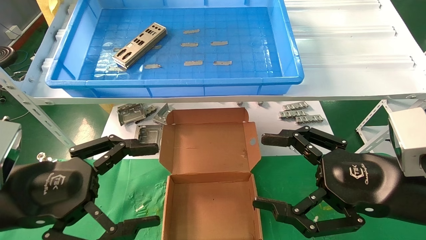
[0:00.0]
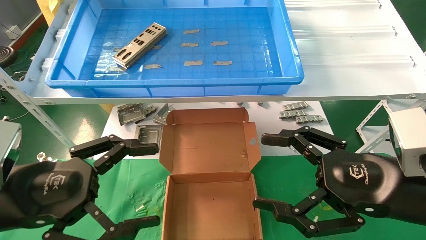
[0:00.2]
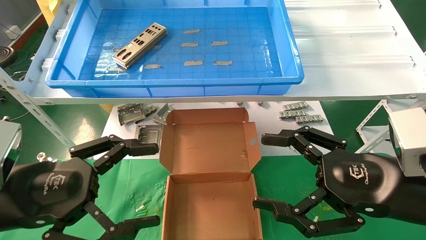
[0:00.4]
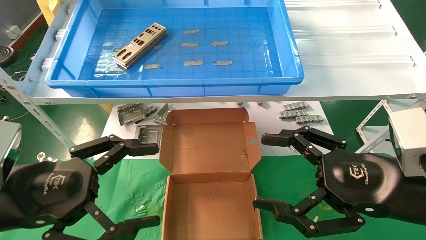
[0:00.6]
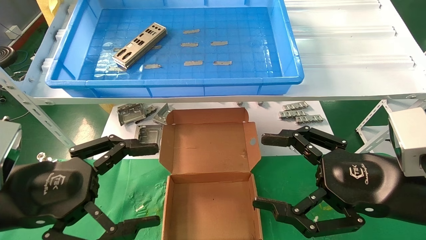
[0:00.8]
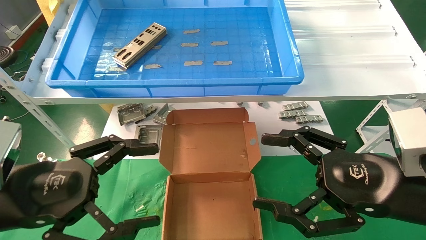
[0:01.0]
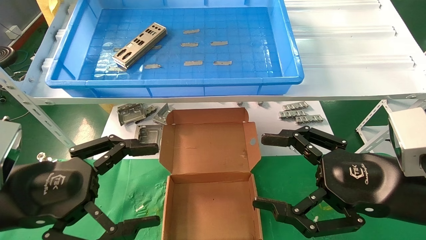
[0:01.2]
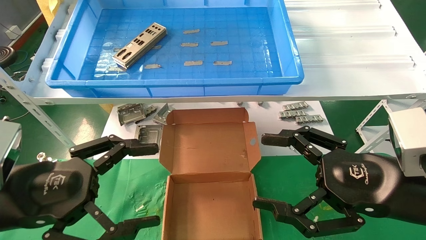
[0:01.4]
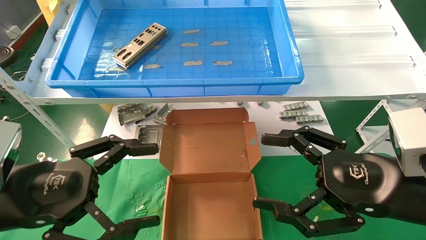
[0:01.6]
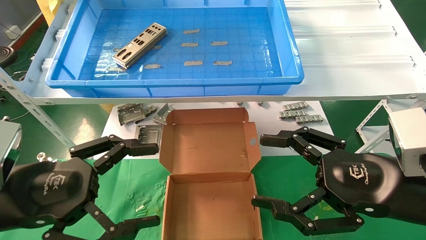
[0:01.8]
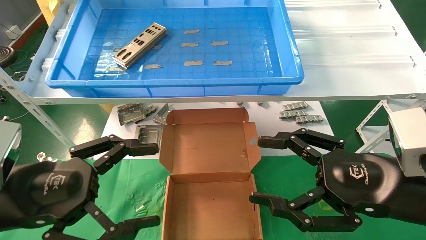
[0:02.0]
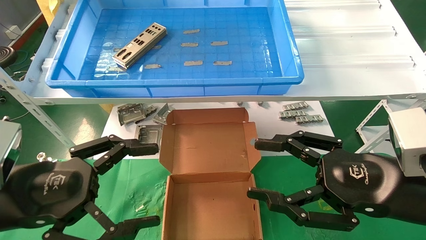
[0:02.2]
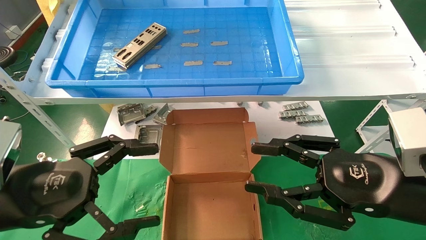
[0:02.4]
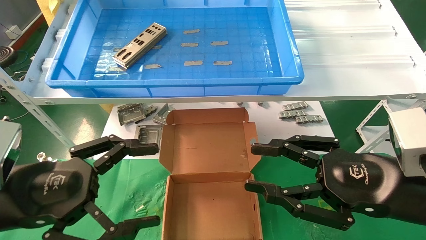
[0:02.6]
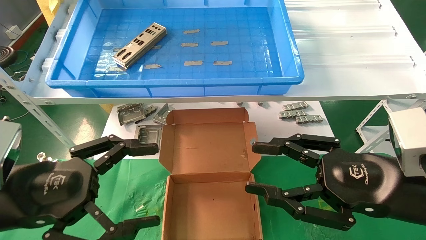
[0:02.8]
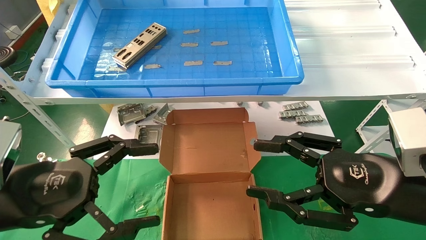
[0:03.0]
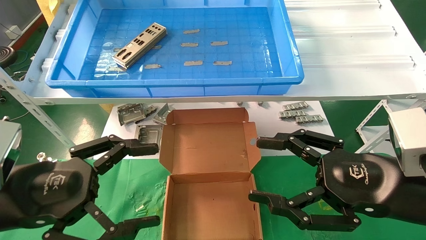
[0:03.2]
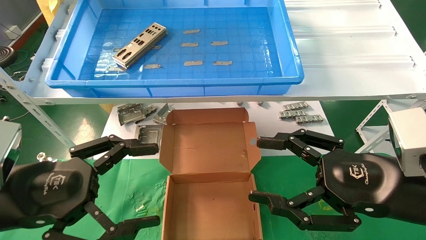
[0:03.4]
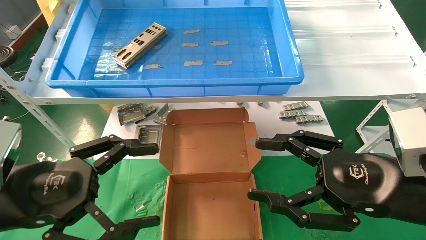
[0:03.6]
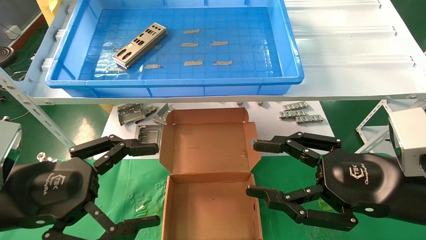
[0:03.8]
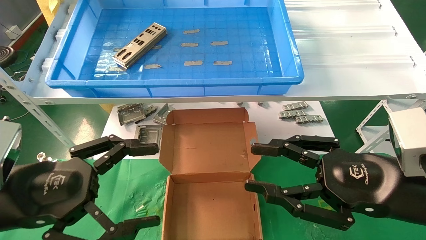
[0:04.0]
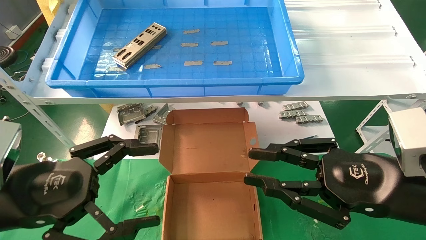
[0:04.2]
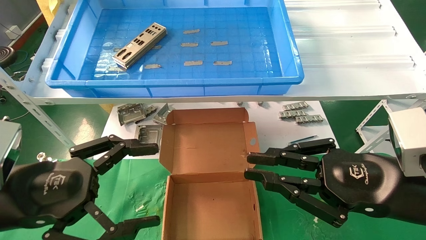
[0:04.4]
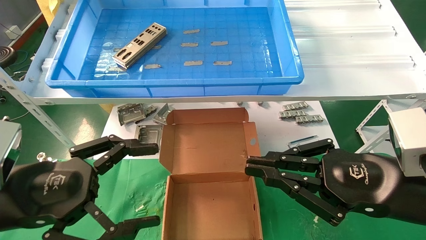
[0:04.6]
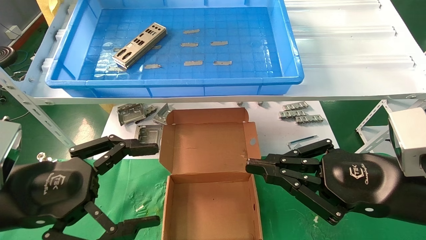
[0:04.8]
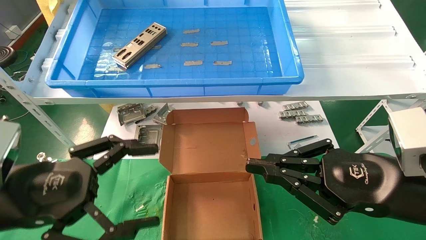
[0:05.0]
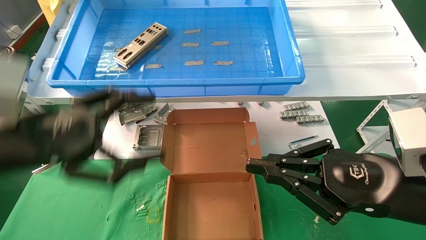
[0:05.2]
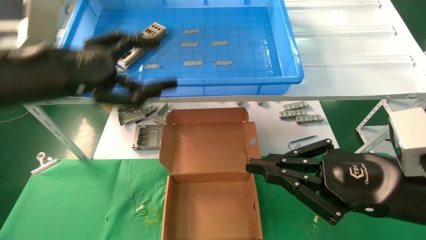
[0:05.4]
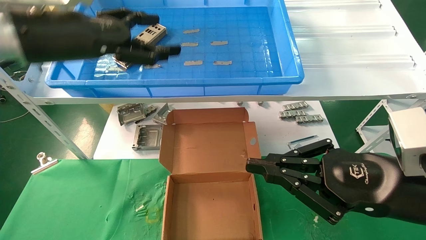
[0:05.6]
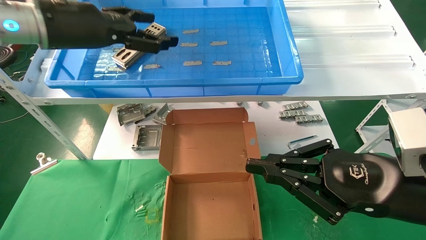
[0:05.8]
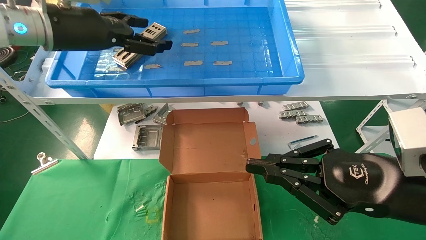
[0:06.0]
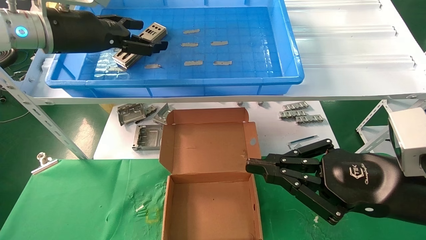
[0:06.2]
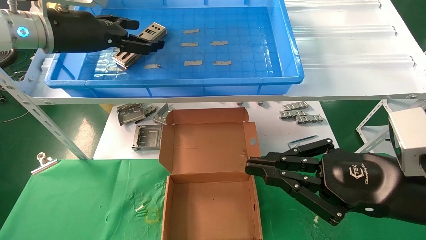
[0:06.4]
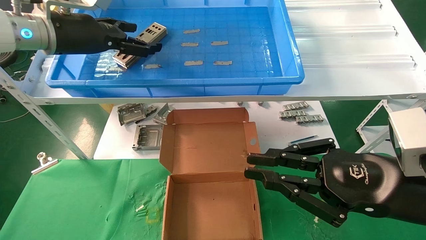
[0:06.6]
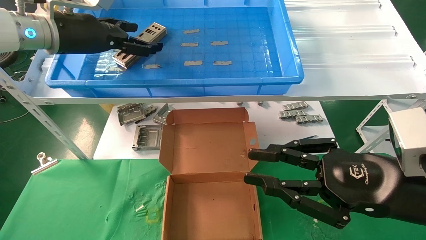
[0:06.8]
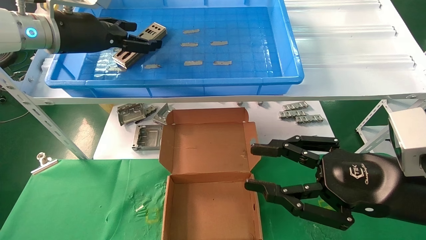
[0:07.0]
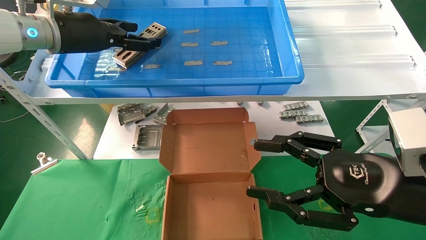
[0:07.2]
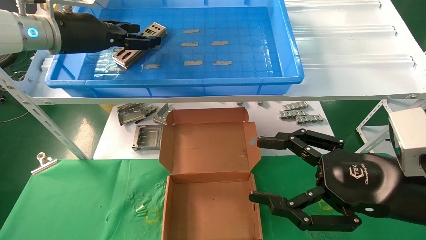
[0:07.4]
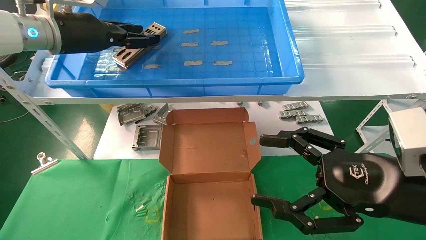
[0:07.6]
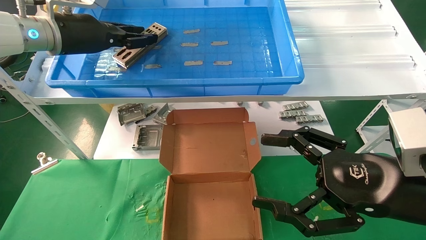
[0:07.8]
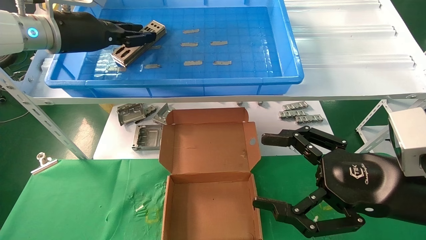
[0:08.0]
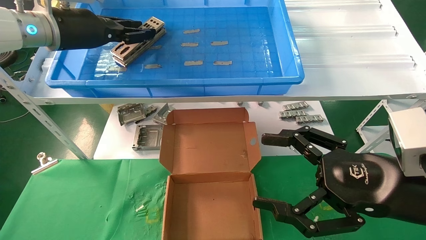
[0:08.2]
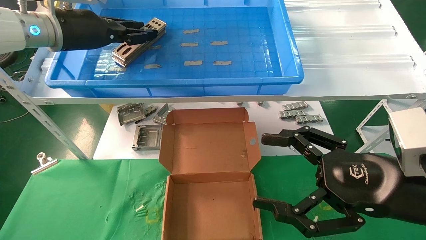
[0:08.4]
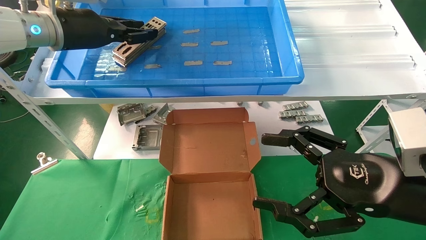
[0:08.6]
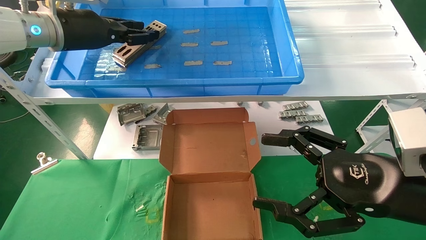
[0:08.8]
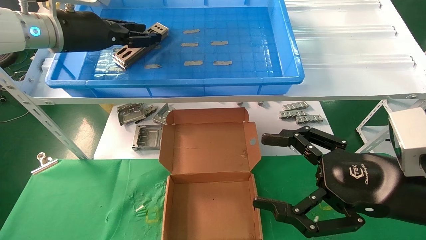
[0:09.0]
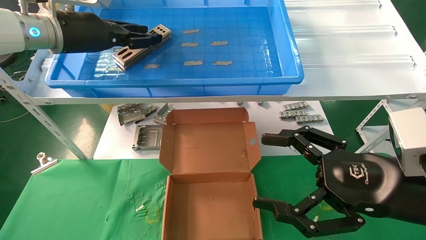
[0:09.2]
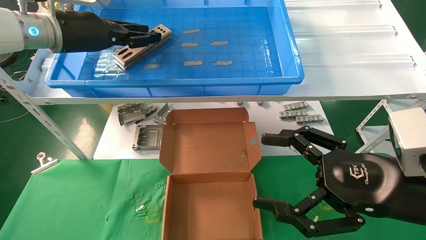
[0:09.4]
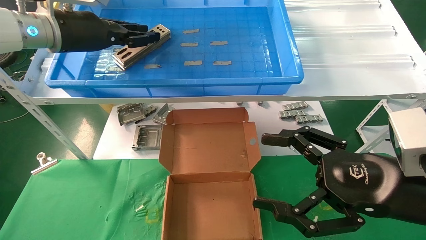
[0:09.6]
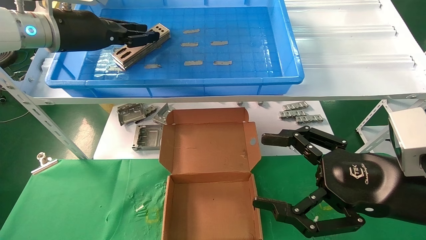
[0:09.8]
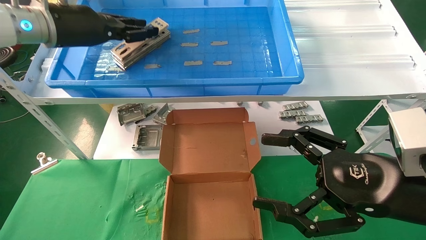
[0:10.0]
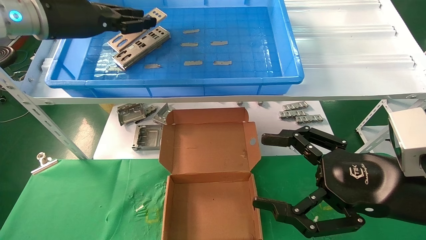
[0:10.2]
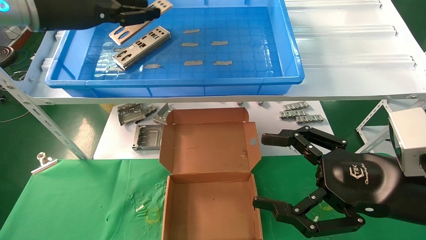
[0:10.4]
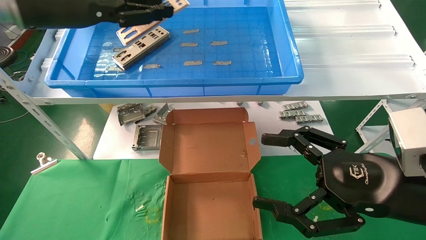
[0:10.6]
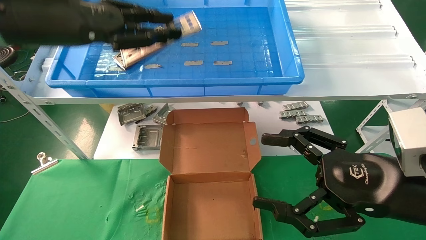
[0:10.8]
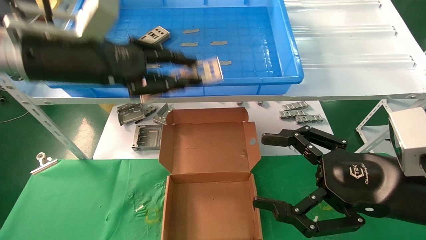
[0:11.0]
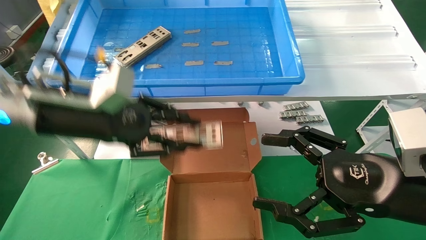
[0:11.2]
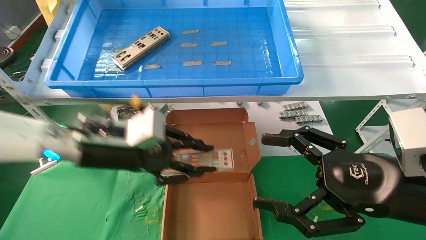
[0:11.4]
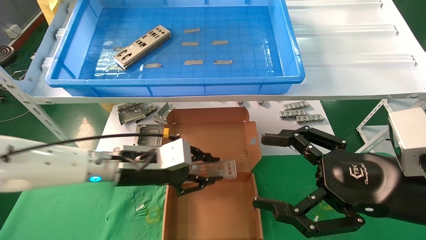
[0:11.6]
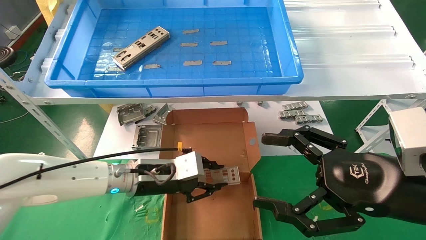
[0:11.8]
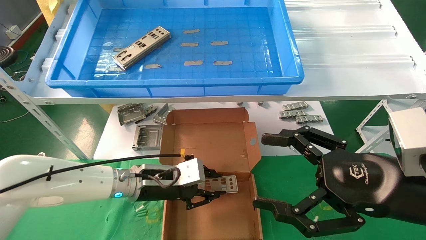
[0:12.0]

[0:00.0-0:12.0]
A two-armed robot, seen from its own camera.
Task of the whole recording: pick up the parts on the tray and put them in the cardboard box.
Step, 0:05.6 to 0:10.0: Pick up the IO bracket from the container box.
0:00.0 to 0:01.6: Both grippers stay about where they are.
0:01.6 to 0:03.0: The right gripper closes up.
0:03.0 to 0:04.4: Both grippers stay put.
0:04.4 to 0:06.0: The left gripper travels upward and forward by some 25 cm.
0:06.0 to 0:07.6: The right gripper opens up. Meanwhile the left gripper closes.
0:07.6 to 0:09.0: Both grippers stay put.
0:09.0 to 0:10.4: The left gripper moves some 5 cm.
0:10.4 to 0:12.0: The left gripper heads downward, covering some 30 cm.

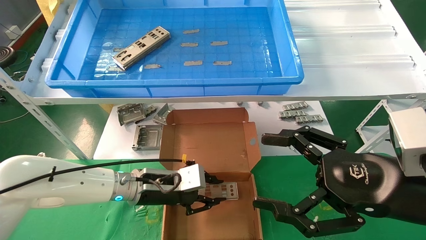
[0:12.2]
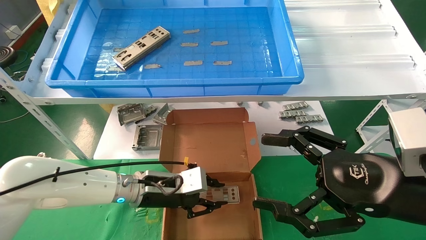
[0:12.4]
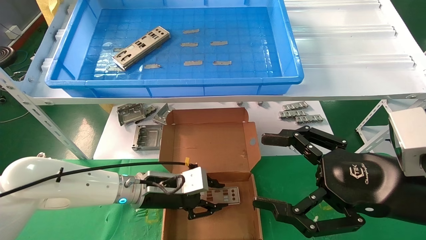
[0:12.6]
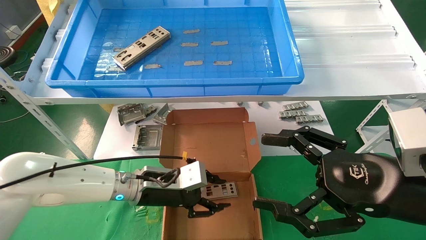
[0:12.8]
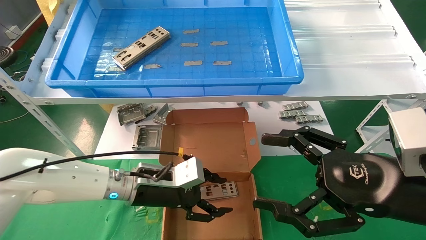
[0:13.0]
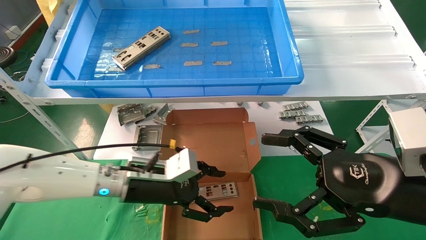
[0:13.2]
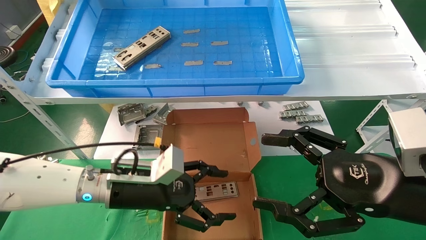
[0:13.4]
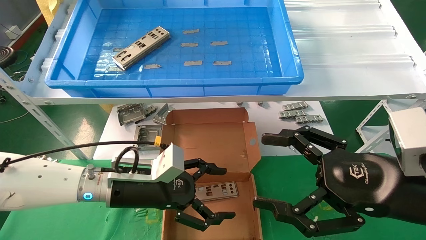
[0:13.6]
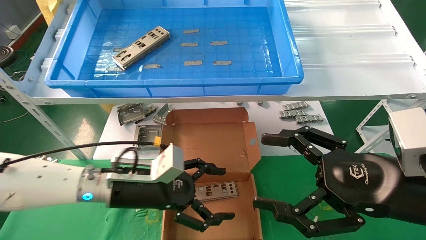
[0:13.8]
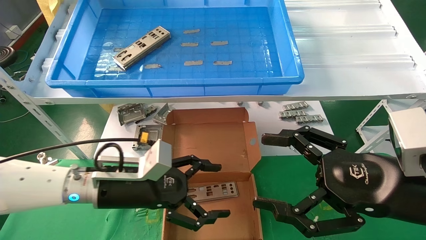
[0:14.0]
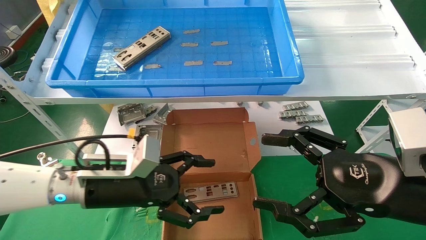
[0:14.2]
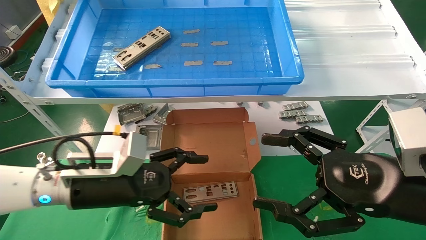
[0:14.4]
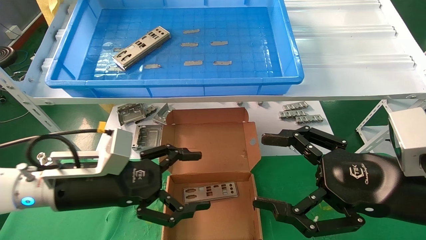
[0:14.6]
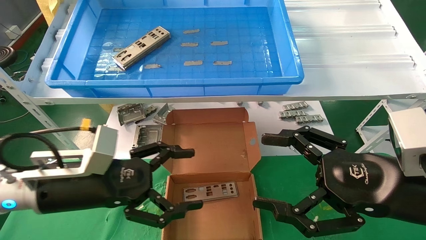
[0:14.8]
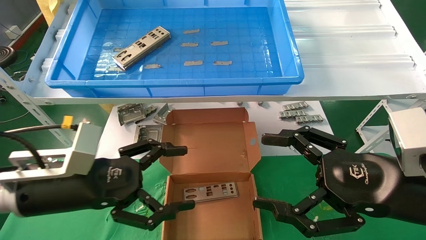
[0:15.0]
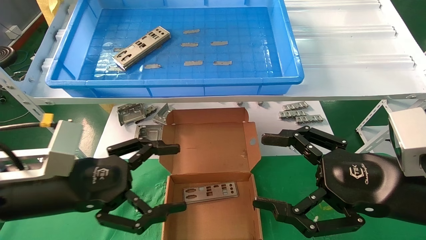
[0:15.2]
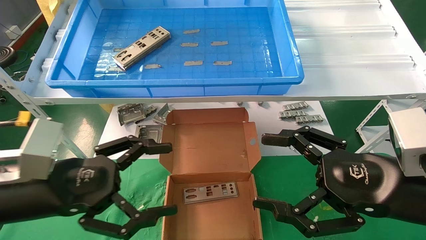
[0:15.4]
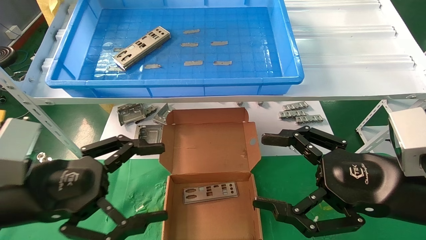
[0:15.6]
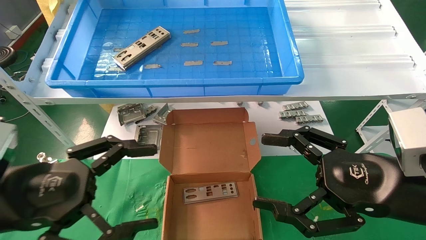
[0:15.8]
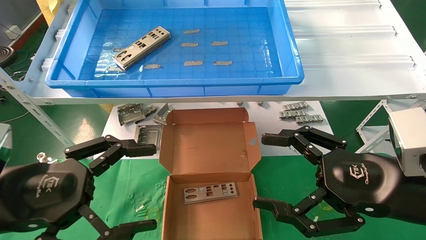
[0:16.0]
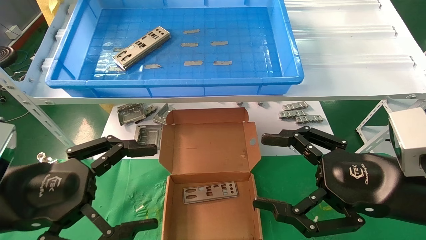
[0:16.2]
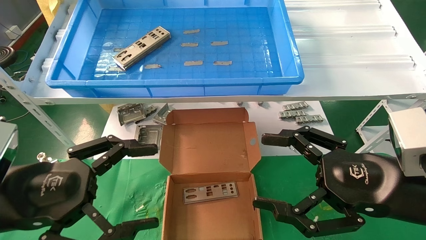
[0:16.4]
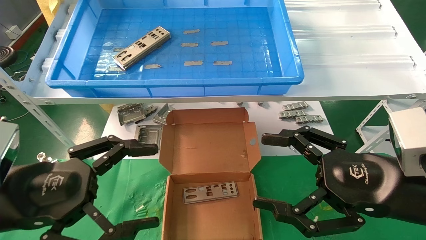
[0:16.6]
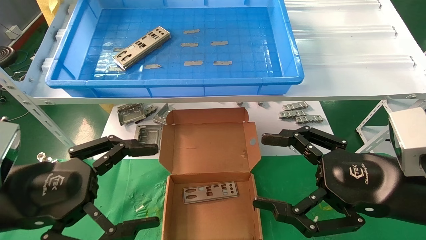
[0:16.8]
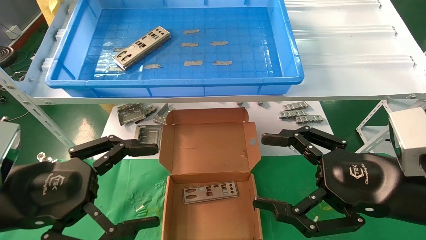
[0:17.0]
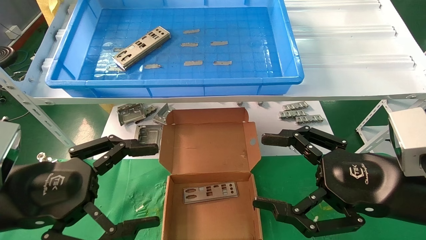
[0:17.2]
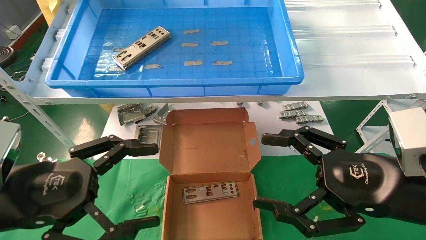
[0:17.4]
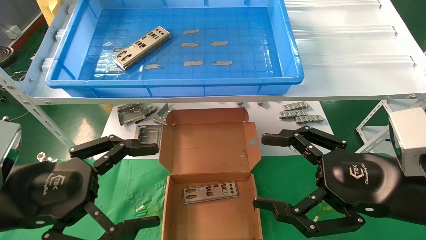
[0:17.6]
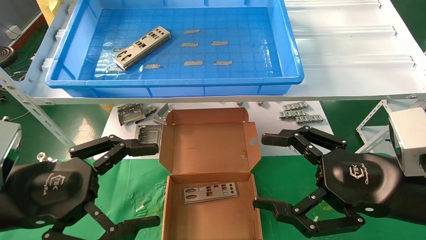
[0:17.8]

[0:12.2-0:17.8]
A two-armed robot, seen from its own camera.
Task of the whole recording: pick up the parts on the tray and put them in the cardboard box.
0:12.2 to 0:13.6: The left gripper shifts by some 5 cm, and opens up.
0:13.6 to 0:15.0: The left gripper travels to the left, backward and upward by some 10 cm.
0:15.0 to 0:16.4: The left gripper travels backward by roughly 5 cm.
0:16.4 to 0:17.8: Neither gripper changes place.
